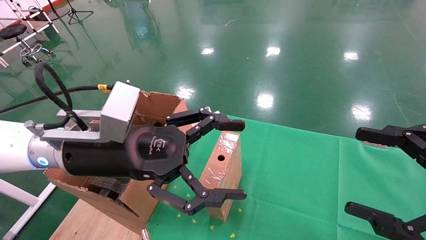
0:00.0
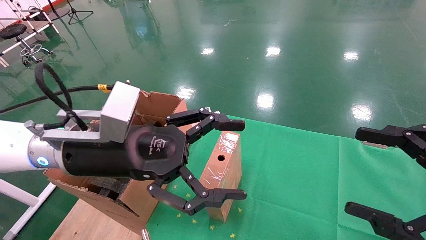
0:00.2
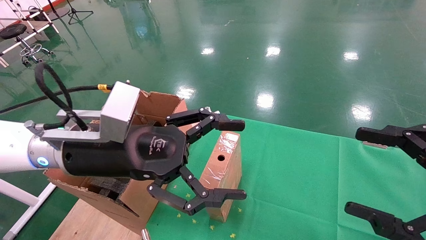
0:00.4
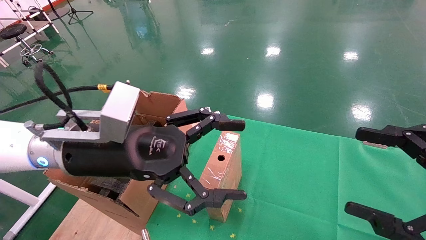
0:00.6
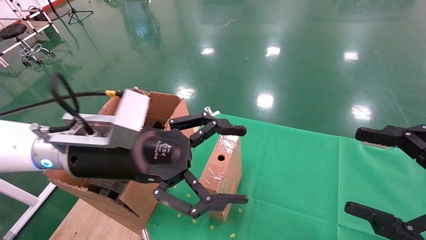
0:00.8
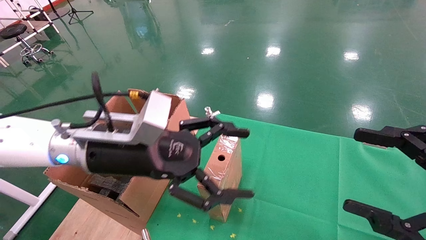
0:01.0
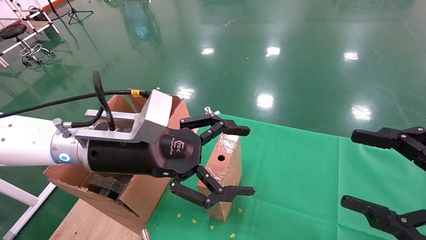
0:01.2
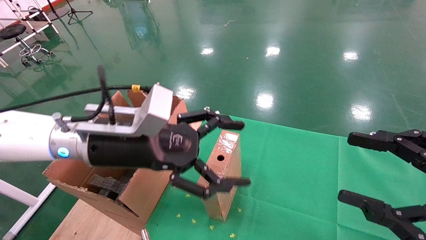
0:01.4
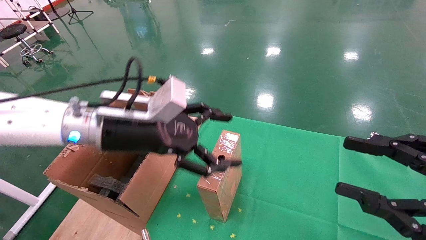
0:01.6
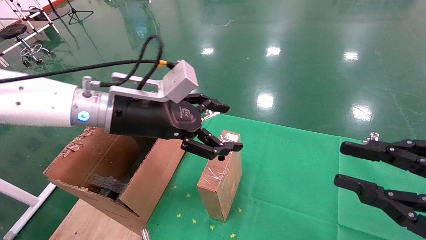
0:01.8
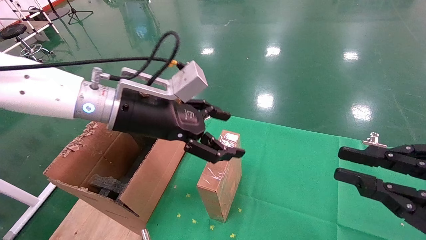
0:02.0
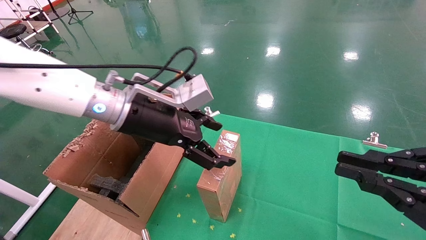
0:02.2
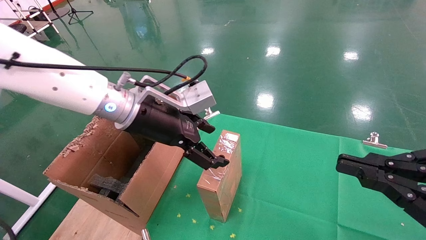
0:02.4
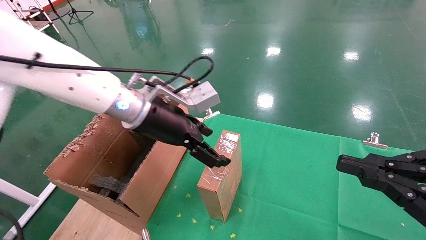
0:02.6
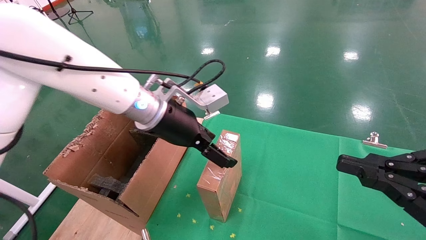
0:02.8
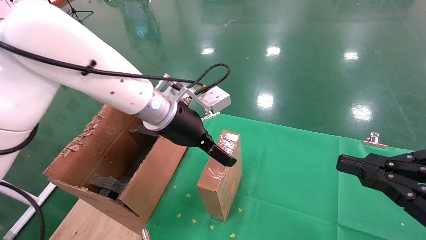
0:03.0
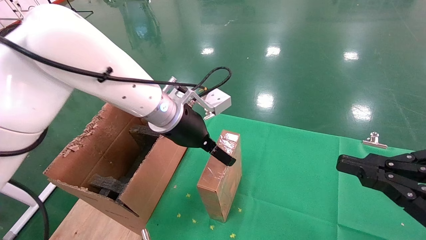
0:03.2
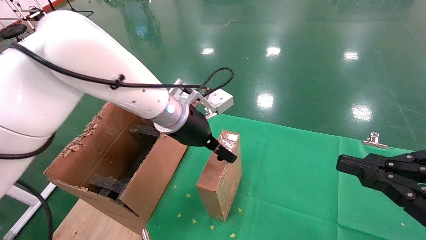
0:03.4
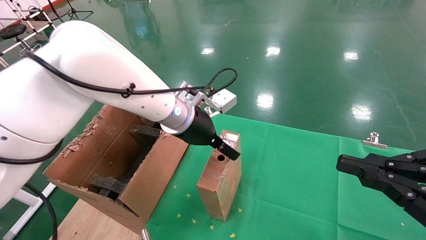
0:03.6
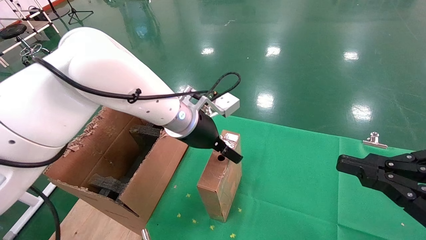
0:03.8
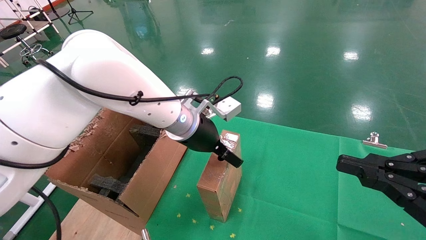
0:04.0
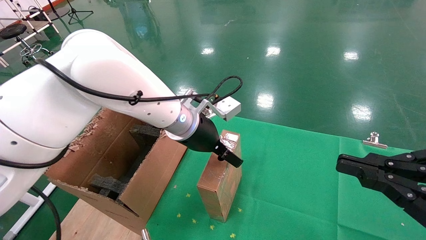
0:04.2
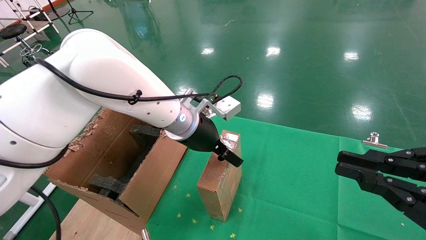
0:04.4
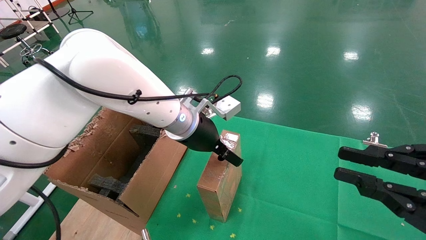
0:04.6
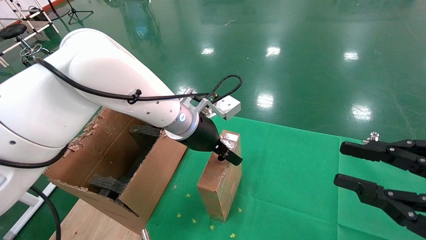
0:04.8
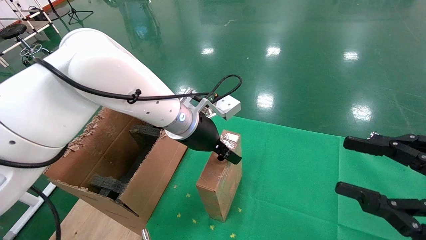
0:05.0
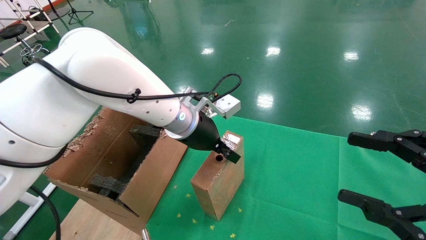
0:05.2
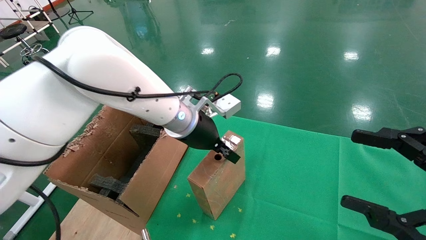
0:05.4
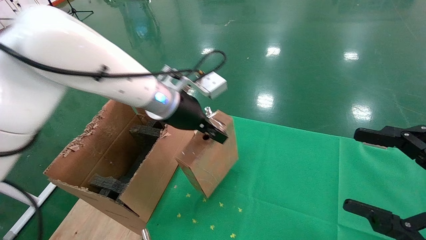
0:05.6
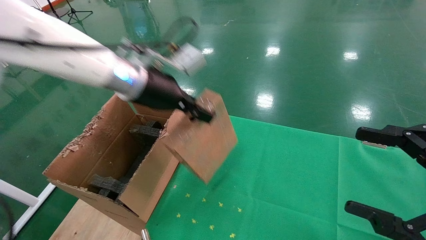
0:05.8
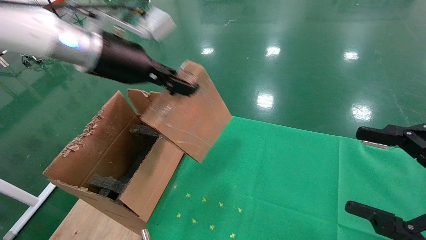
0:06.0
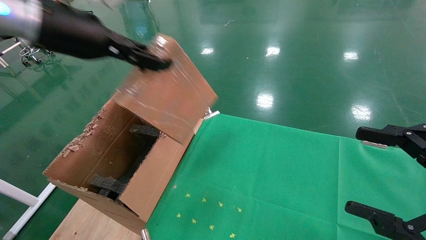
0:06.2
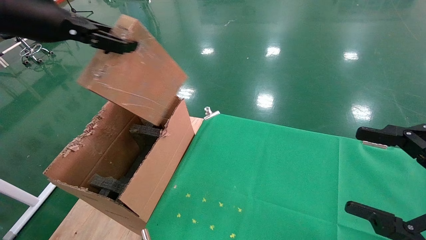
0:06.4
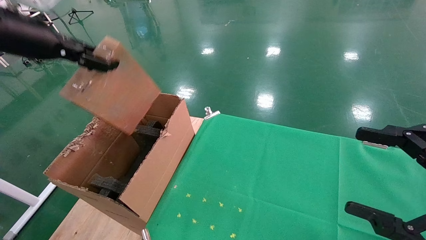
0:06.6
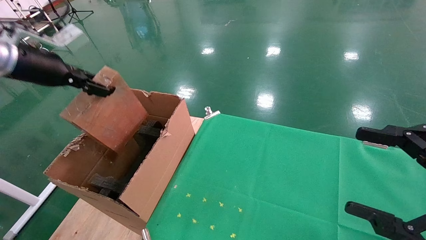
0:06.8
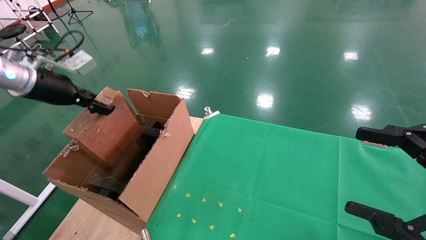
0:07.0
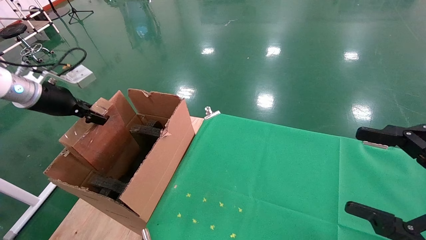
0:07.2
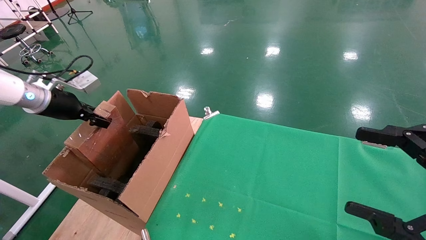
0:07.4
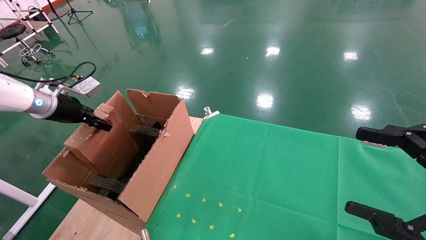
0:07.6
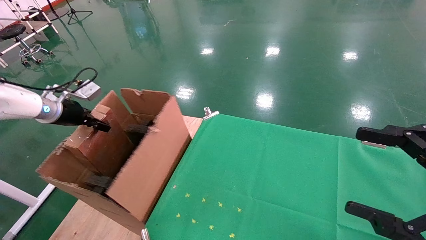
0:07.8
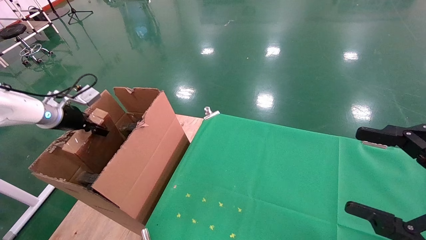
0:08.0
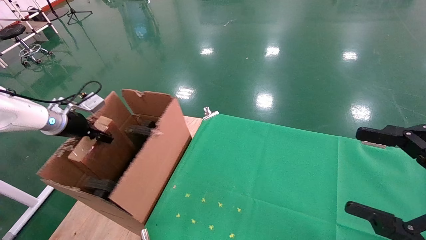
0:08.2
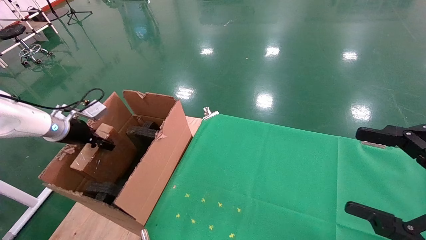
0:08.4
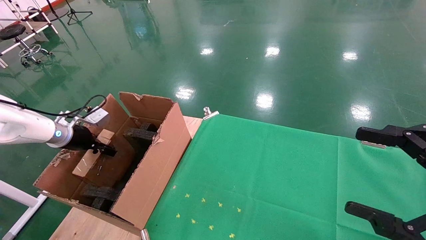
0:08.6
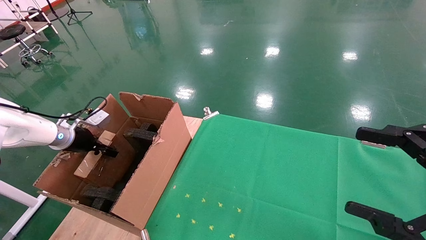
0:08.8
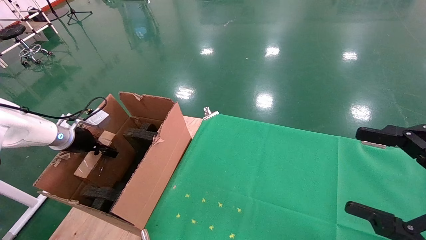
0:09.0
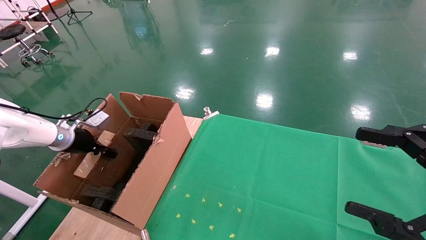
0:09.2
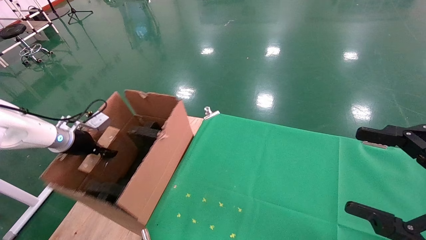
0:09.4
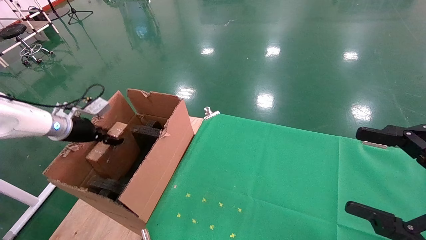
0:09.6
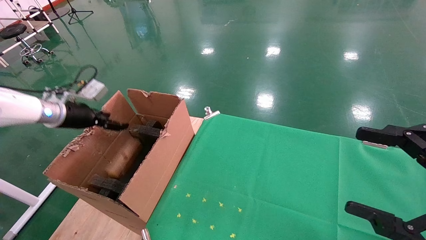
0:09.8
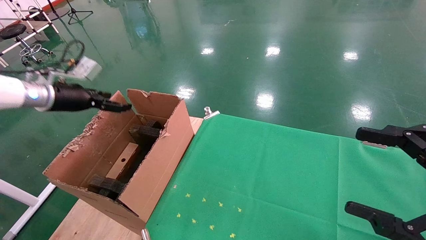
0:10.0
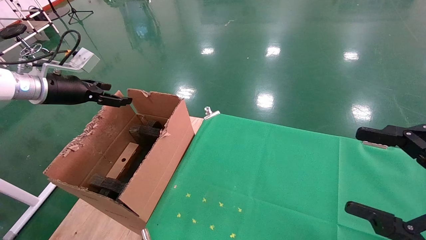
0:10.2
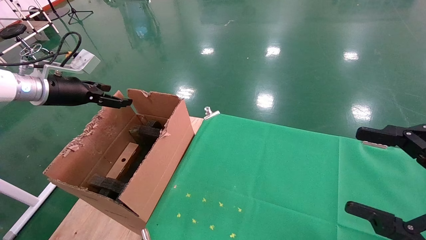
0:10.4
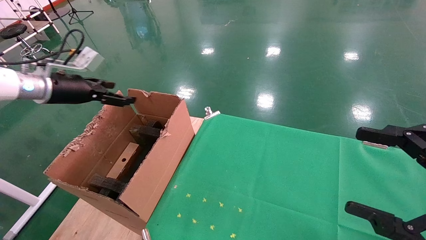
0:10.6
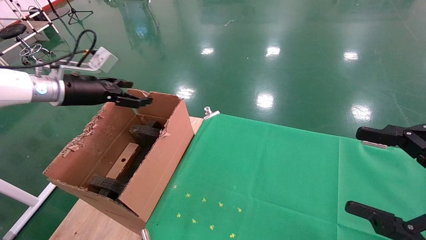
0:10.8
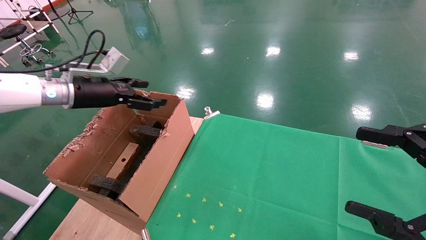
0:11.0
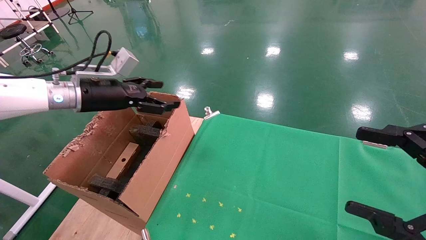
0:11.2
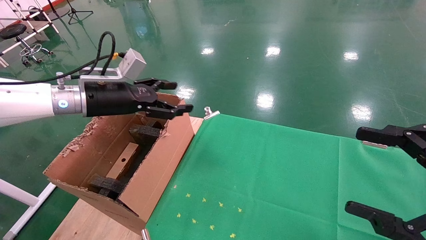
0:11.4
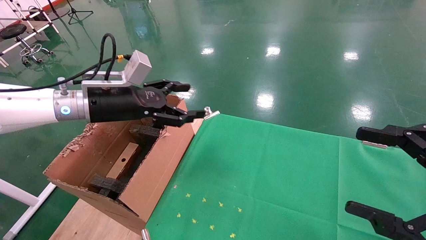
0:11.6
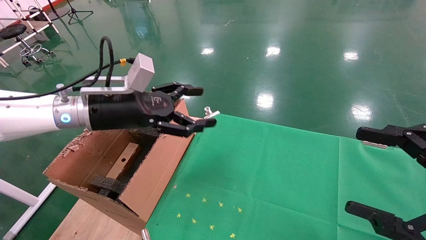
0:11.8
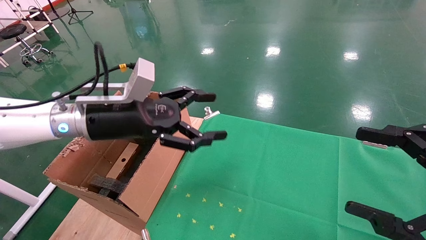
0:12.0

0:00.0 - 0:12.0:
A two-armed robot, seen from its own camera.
Task of the whole recording: using a robotic arm to pick up a cardboard box and palace it the carton.
Step, 0:01.0 - 0:05.2: Pick up the mouse and the power cord paper box.
Step, 0:05.4 - 0:09.6: Place the mouse and the power cord paper box into the container.
0:00.0 - 0:01.6: The left gripper travels forward by roughly 5 cm. The right gripper closes its fingers.
0:01.6 - 0:03.0: The left gripper travels forward and to the right by about 10 cm. The right gripper closes.
0:04.4 - 0:06.0: The left gripper goes about 20 cm upward, to the left and backward, and closes. Meanwhile the right gripper opens.
0:06.0 - 0:07.6: The left gripper is displaced to the left and downward by roughly 25 cm.
0:07.6 - 0:09.0: The left gripper is displaced downward by some 10 cm.
0:09.0 - 0:10.4: The left gripper goes roughly 15 cm upward, and opens up.
0:10.4 - 0:12.0: The left gripper goes about 20 cm to the right.

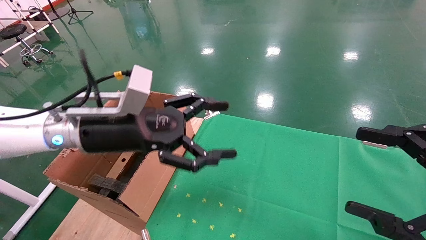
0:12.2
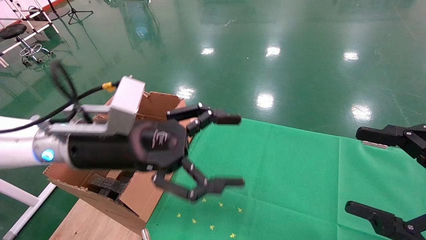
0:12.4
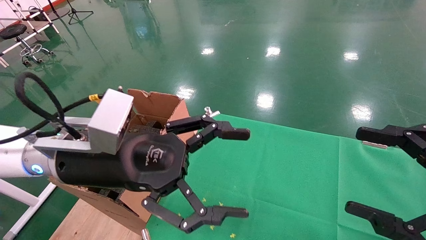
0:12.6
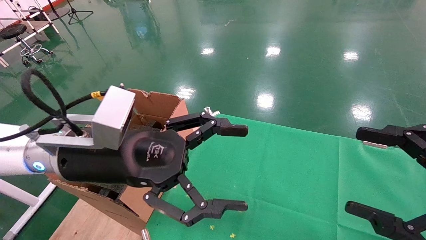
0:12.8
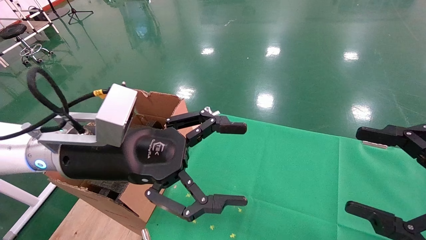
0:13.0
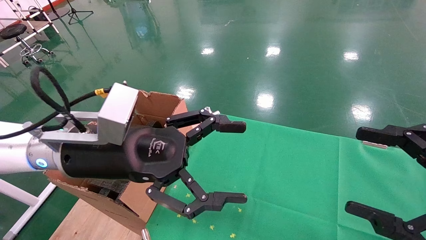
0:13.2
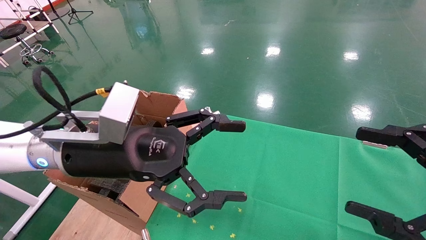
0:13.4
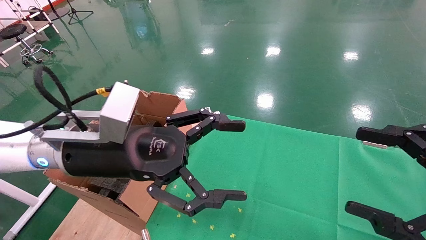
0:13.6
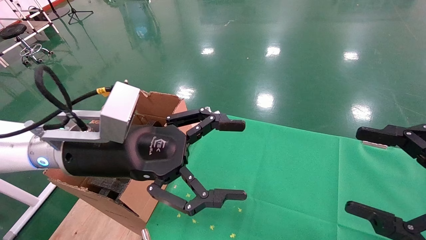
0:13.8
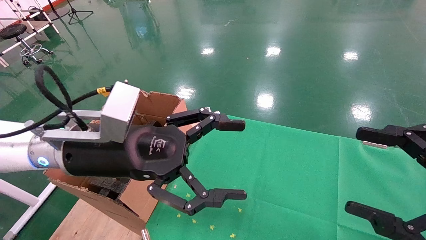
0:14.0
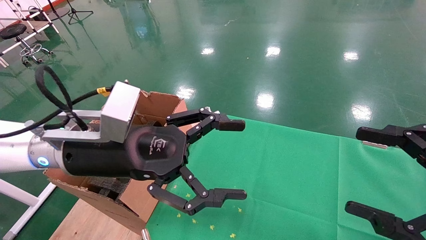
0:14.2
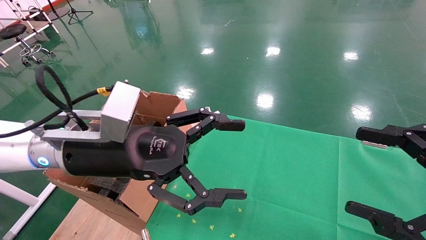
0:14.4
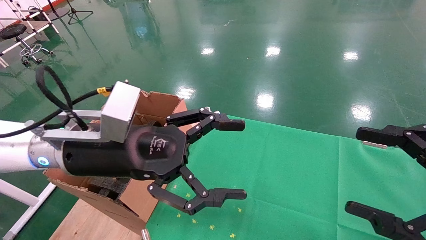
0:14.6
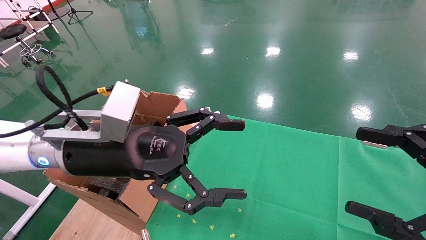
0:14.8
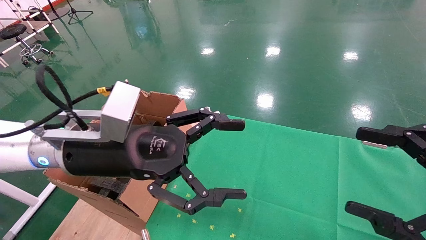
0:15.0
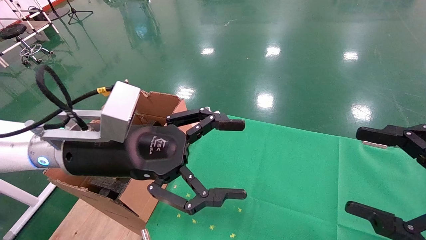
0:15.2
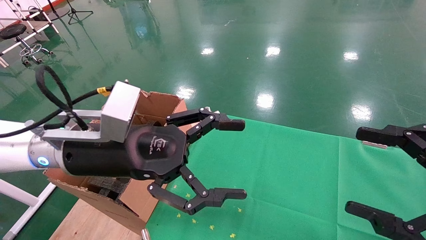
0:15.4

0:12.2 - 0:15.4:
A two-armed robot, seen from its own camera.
Task of the whole recording: using a robotic arm to pick up a cardboard box and palace it the carton.
0:12.2 - 0:13.8: There are only small adjustments of the grippers.
0:13.8 - 0:15.4: Both grippers stay put.

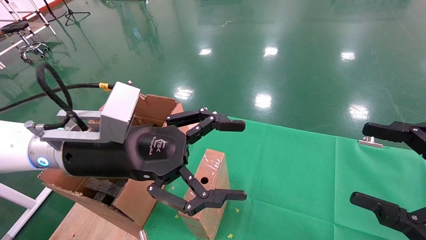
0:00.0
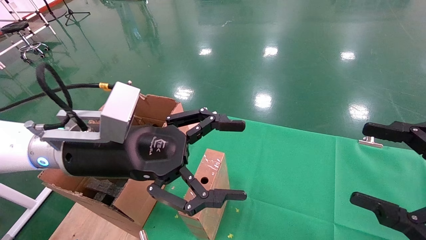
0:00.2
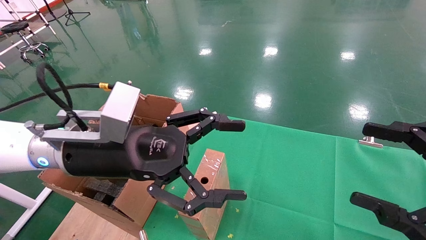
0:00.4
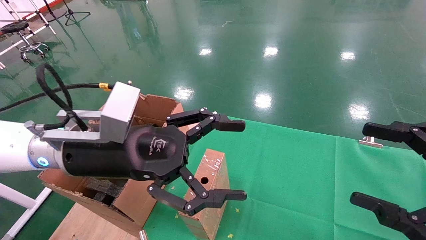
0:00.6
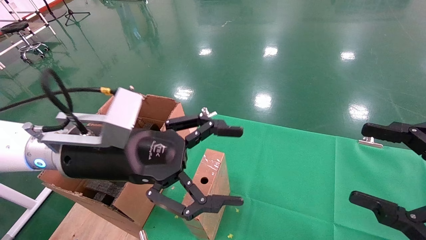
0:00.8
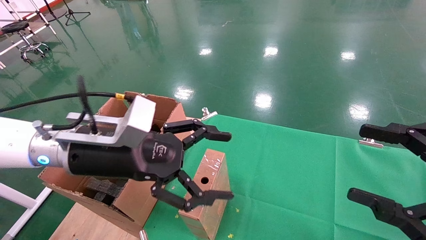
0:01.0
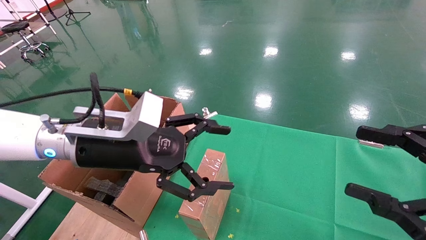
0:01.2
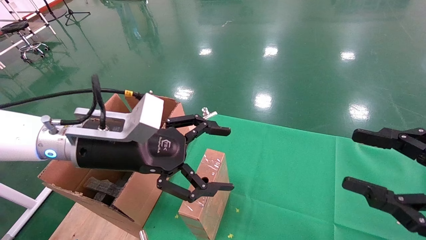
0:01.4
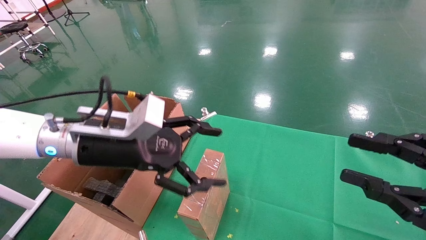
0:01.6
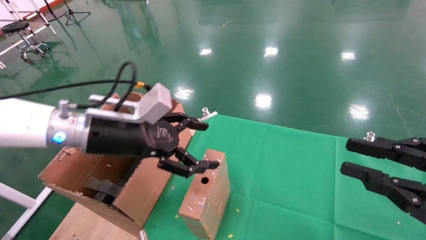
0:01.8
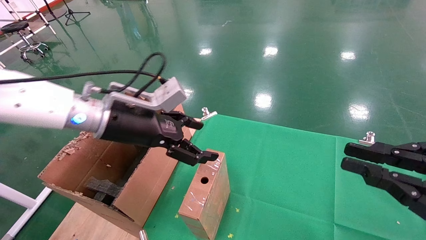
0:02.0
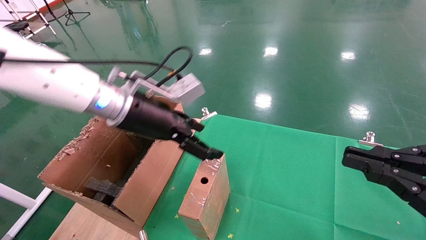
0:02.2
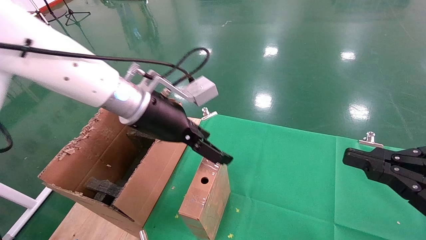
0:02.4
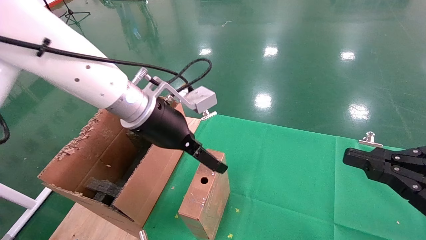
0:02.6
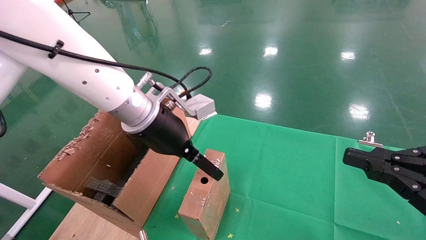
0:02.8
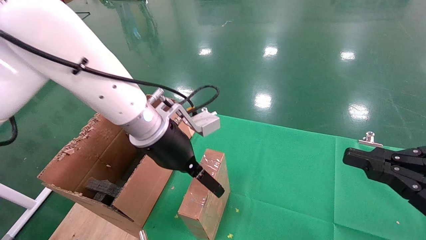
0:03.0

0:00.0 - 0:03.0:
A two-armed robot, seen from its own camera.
Task of the whole recording: using a robotic arm to pick up a cardboard box and palace it the carton.
0:00.0 - 0:01.6: The right gripper closes up.
0:01.6 - 0:03.0: The right gripper closes its fingers. Meanwhile the left gripper goes approximately 10 cm to the right and forward.
